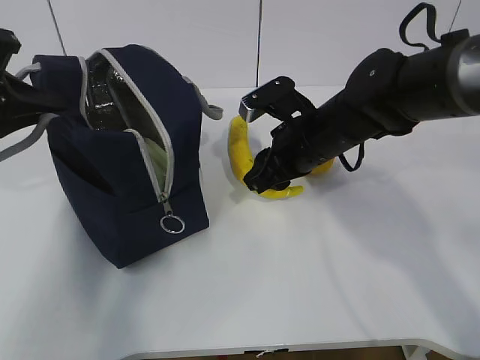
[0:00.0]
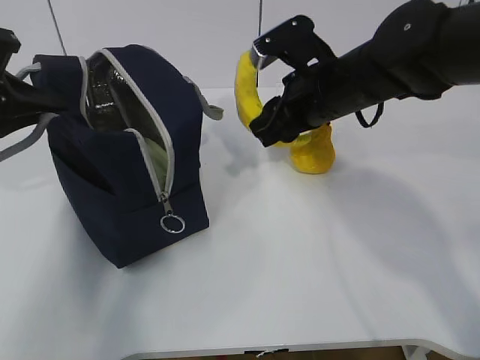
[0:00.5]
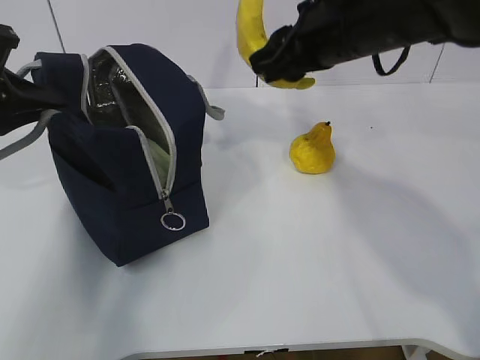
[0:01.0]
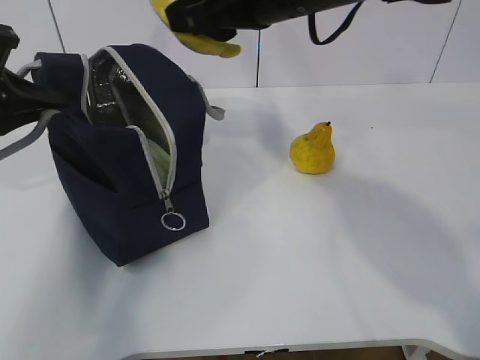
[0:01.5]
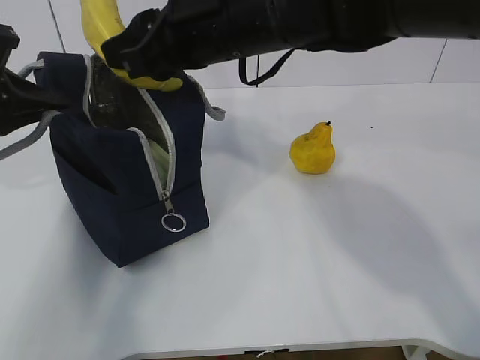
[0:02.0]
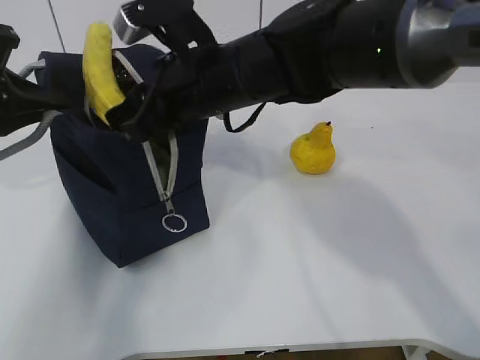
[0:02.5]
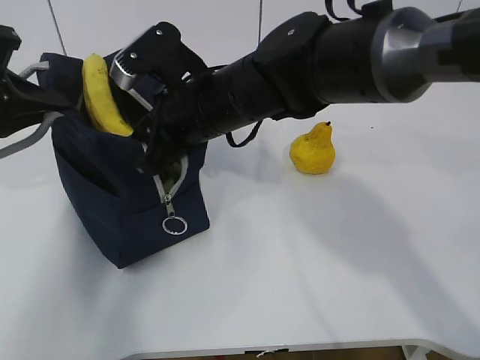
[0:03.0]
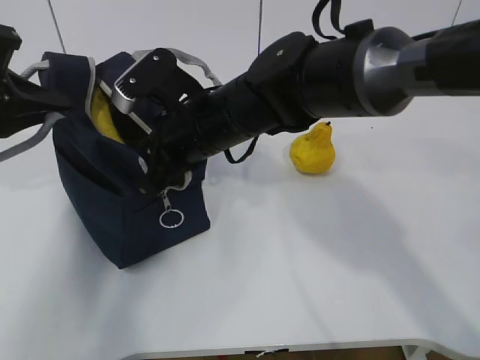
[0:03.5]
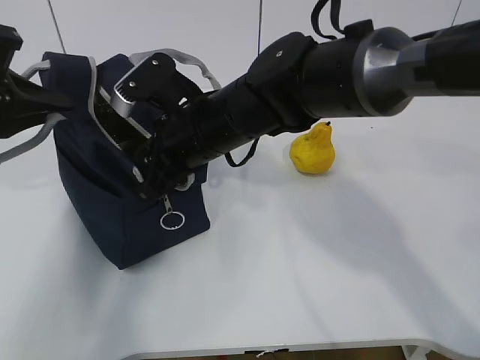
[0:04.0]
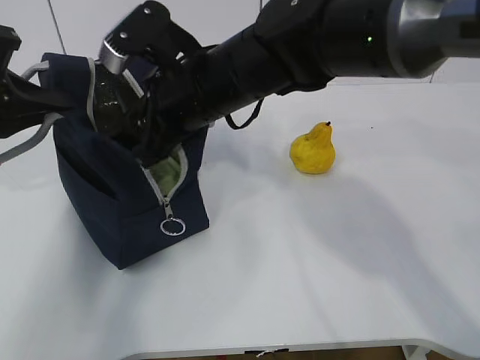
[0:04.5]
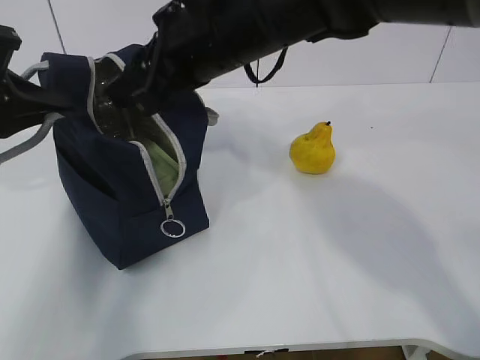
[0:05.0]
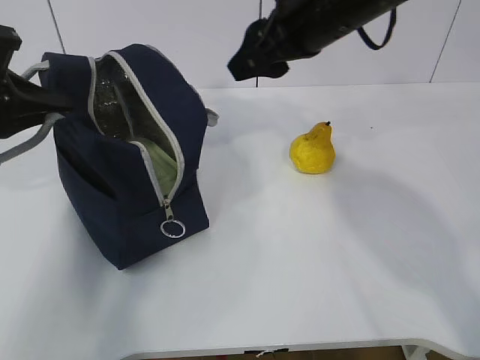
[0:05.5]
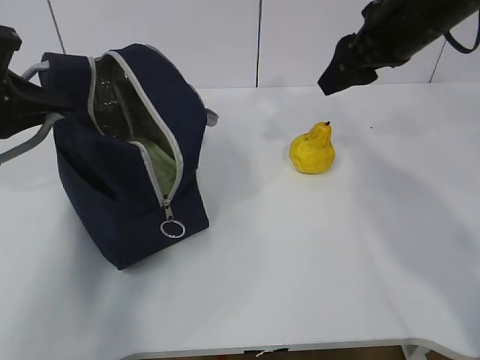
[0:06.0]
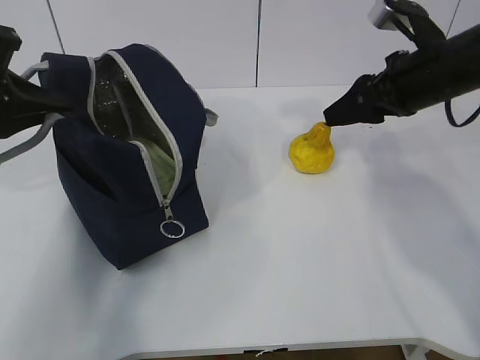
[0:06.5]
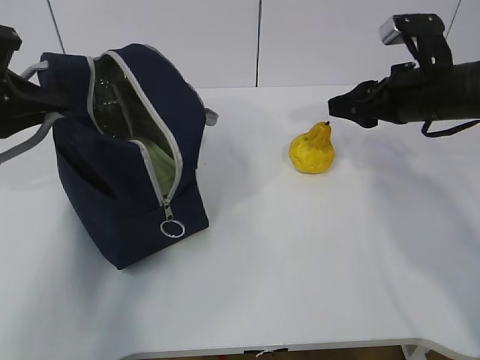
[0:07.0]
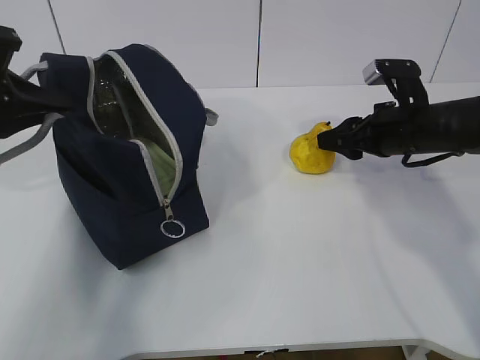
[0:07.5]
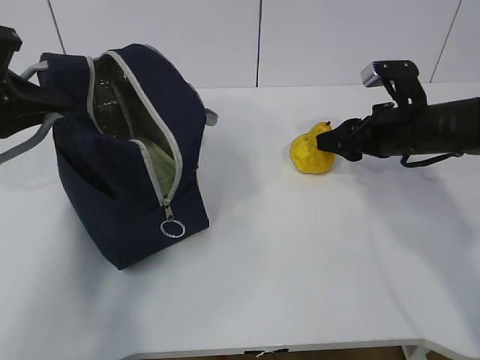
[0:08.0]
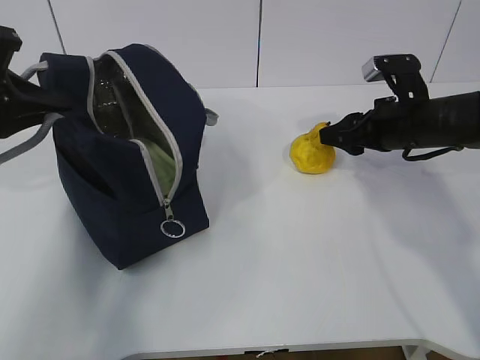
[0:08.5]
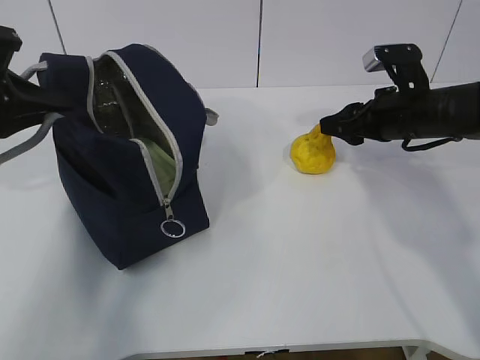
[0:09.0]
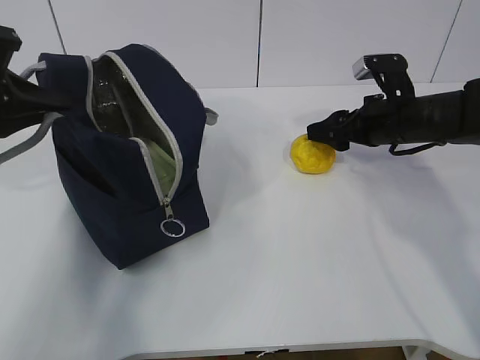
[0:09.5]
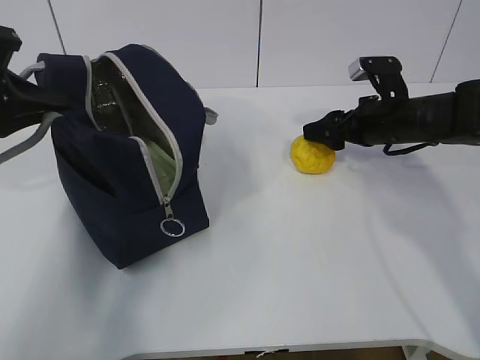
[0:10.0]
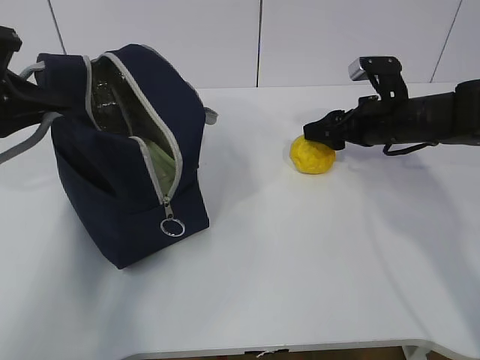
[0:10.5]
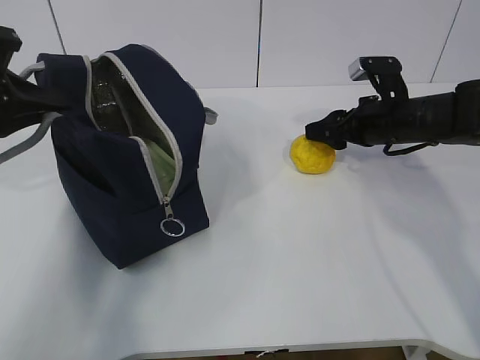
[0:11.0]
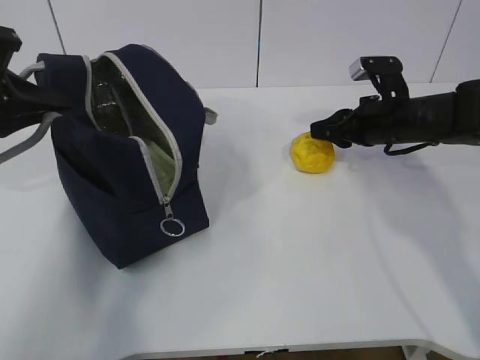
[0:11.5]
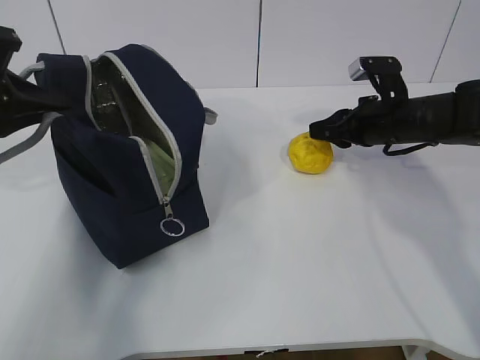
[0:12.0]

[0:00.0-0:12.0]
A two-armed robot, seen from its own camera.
Step, 0.0 to 4.5 s: Grab the pear with your right hand.
Step, 8.5 to 11.5 s: Grab the lunch bag with your right hand.
0.0 to 2.0 s: The right gripper travels upward and to the left by some 15 cm.
2.0 to 4.0 s: The right gripper travels downward by about 10 cm.
4.0 to 6.0 s: The right gripper heads to the right and upward, covering approximately 25 cm.
6.0 to 8.0 s: The right gripper travels downward by some 15 cm.
8.0 to 10.0 s: The grippers move only a little.

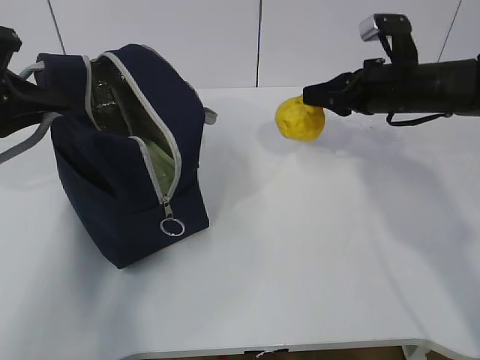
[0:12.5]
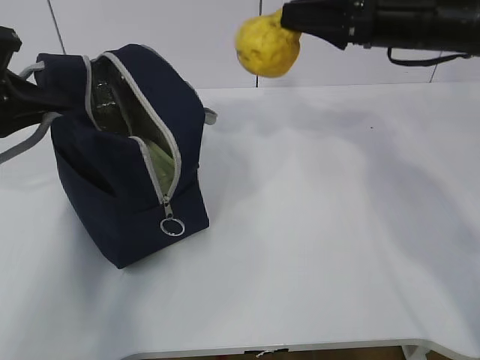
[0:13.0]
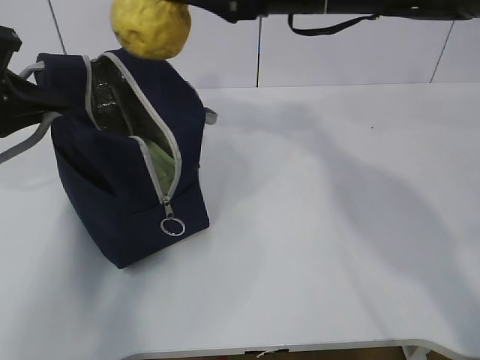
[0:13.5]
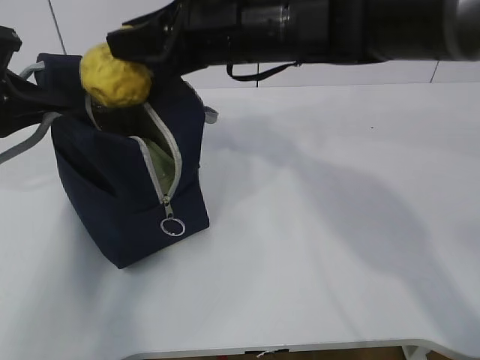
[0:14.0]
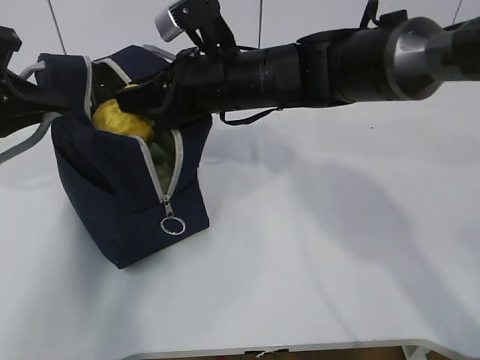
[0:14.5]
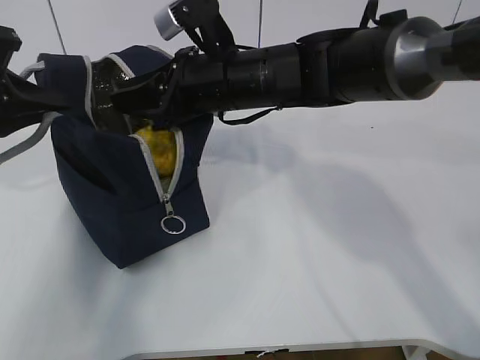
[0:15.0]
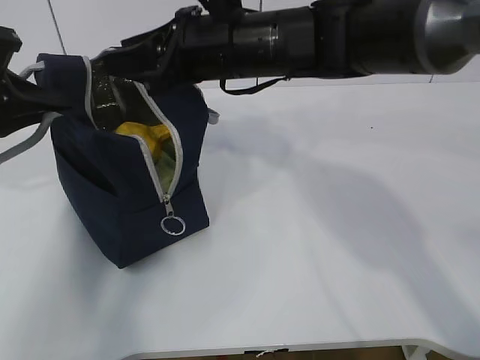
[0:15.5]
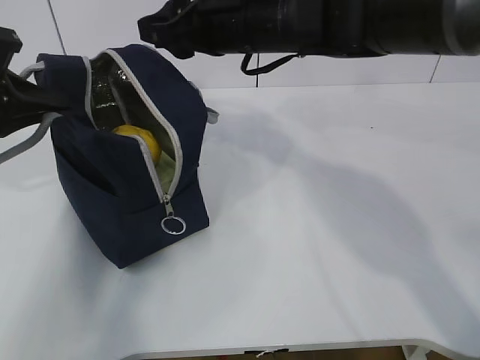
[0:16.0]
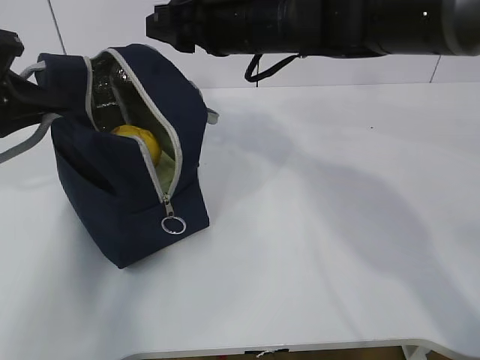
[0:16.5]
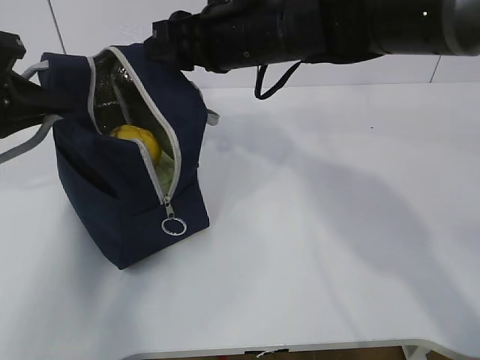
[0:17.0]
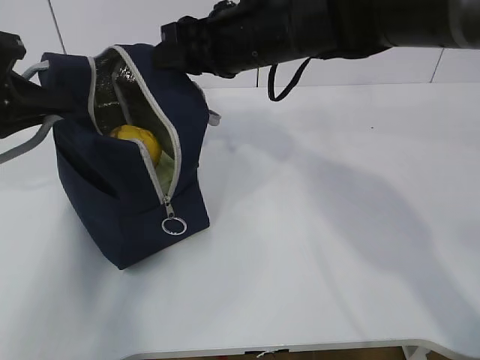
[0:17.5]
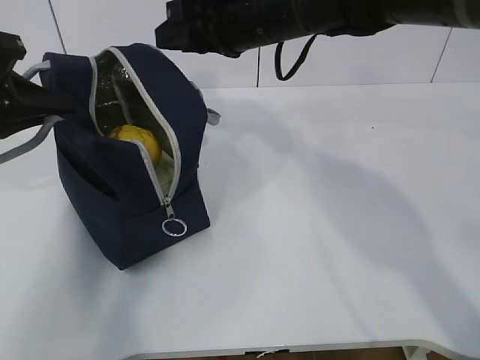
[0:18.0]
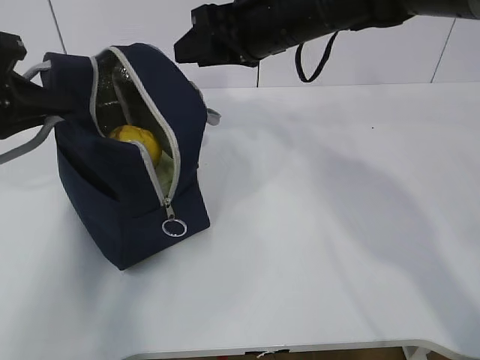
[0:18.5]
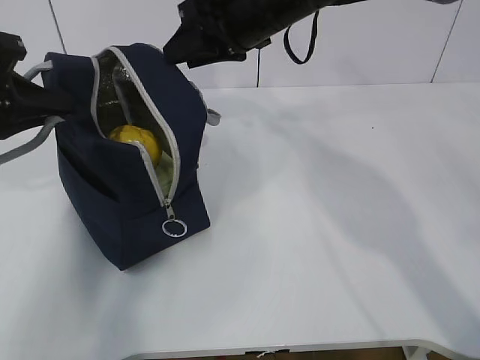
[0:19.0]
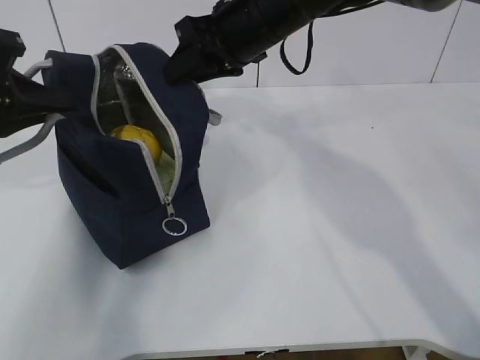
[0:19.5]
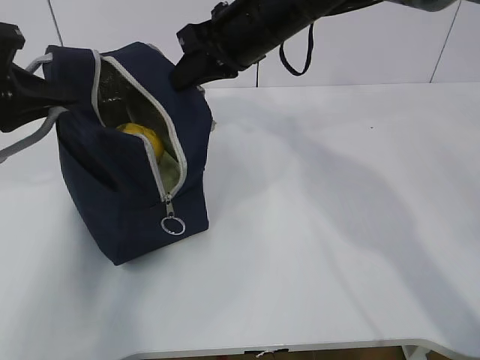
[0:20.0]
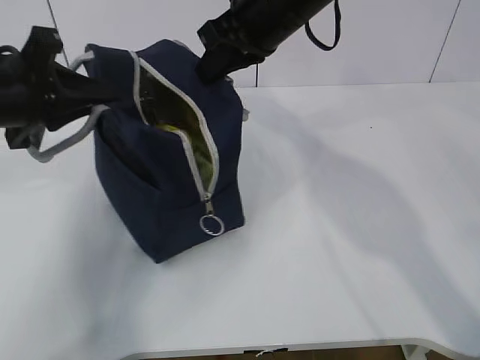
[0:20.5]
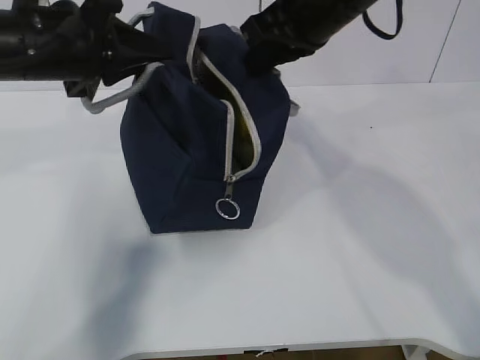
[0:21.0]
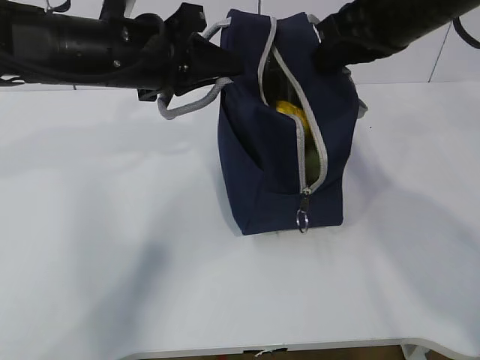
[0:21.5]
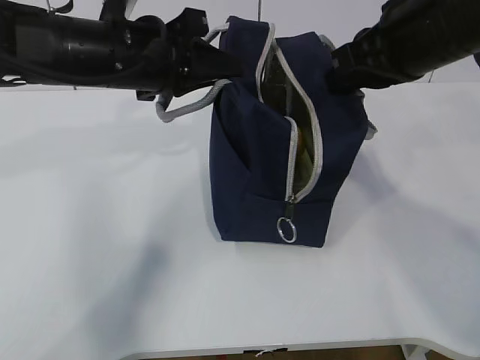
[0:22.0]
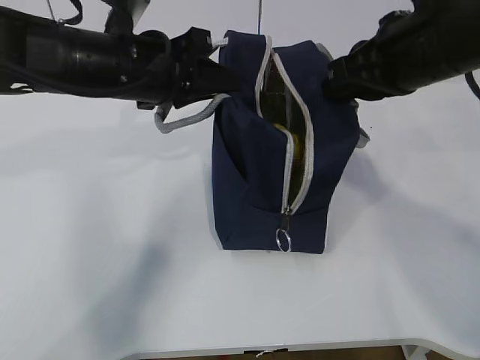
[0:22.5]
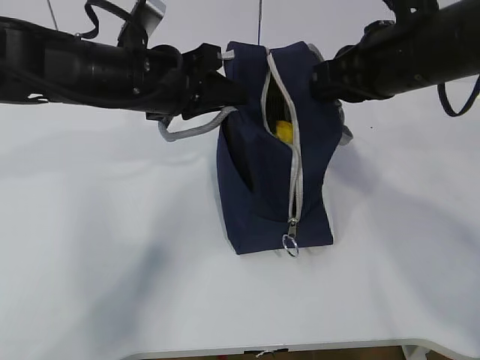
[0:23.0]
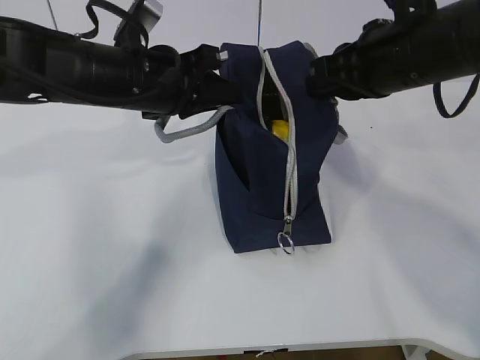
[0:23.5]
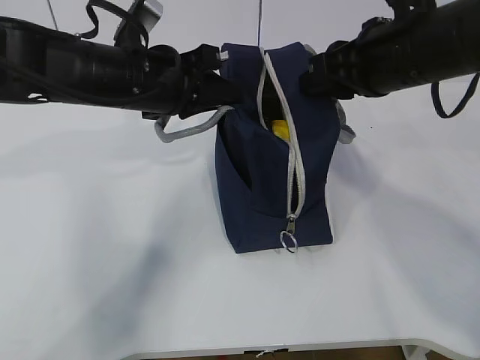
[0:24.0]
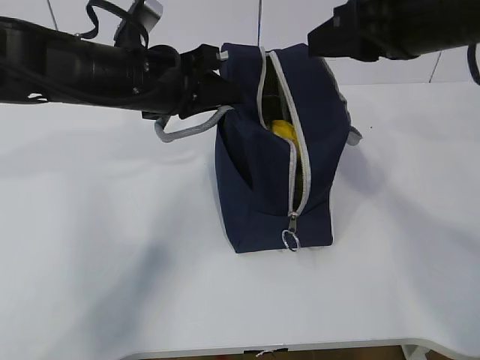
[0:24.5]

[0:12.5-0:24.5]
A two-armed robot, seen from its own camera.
Step, 12.5 to 16.5 s: Move the lunch bag to the right.
12.5 to 14.5 s: The right gripper is displaced to the left by roughly 20 cm.
14.5 to 16.5 s: The right gripper shifts about 5 cm upward.
16.5 to 18.5 s: There are only small adjustments of the grippers.
18.5 to 20.5 s: The right gripper closes up.
20.5 to 22.5 s: The right gripper shifts approximately 15 cm to the right and backward; the left gripper is displaced to the right by roughly 10 cm.
22.5 to 24.5 s: The right gripper opens.

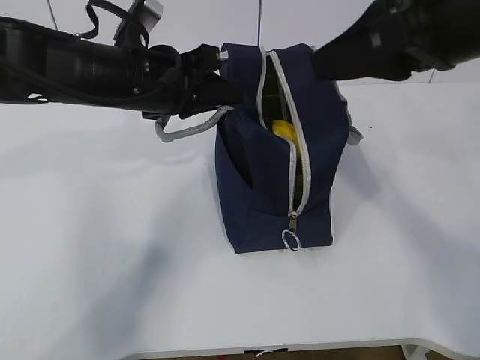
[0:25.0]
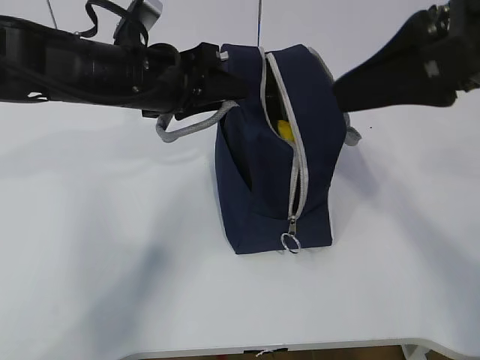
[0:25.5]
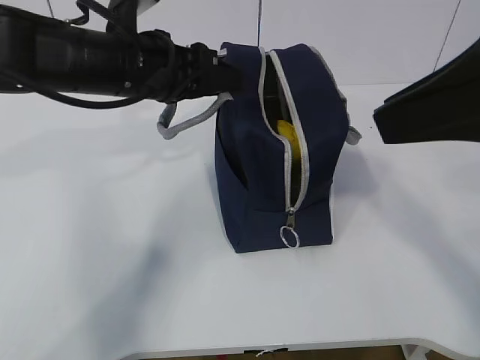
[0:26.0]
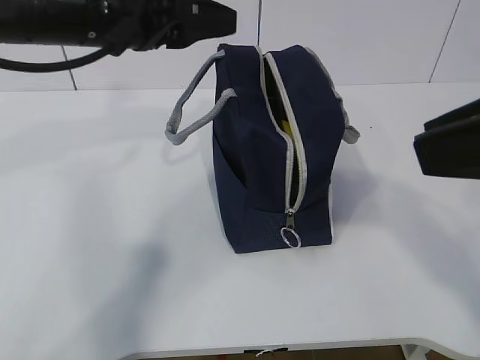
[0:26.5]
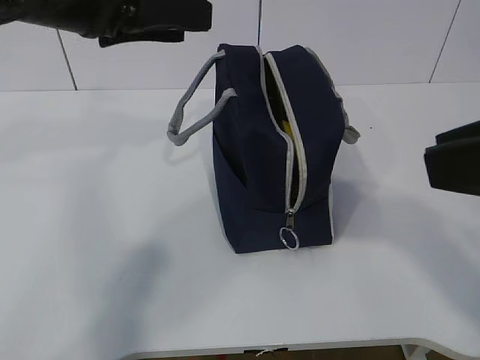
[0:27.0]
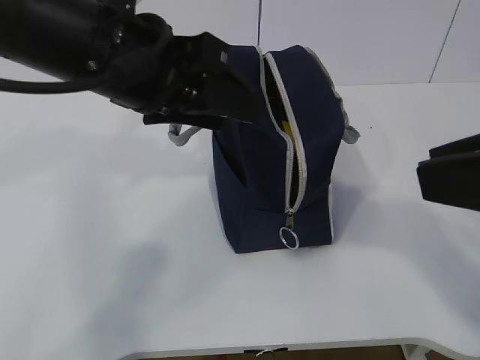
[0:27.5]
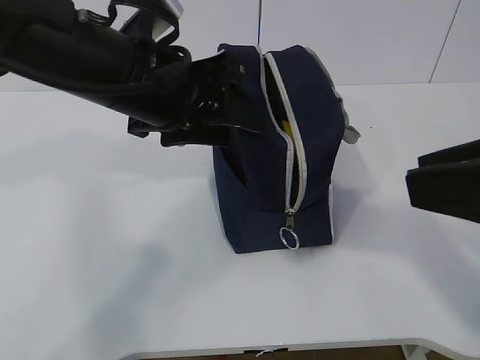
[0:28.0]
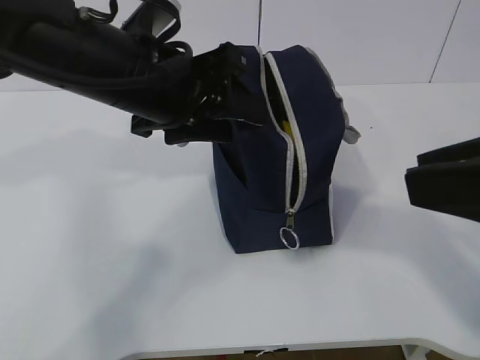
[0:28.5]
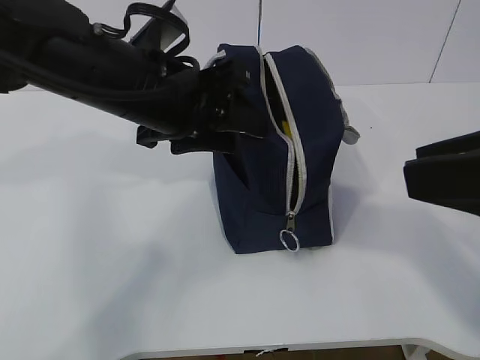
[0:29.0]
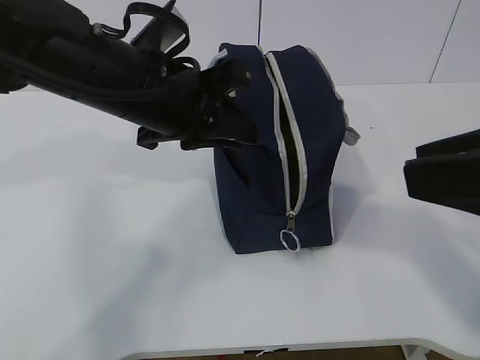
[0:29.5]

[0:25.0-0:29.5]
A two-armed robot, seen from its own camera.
25.0 to 27.0 s: The right gripper moves backward, some 10 cm; the left gripper moves upward and backward, approximately 15 cm, and opens.
27.0 to 29.5 s: The left gripper is displaced downward and to the right by approximately 10 cm, and closes up.
